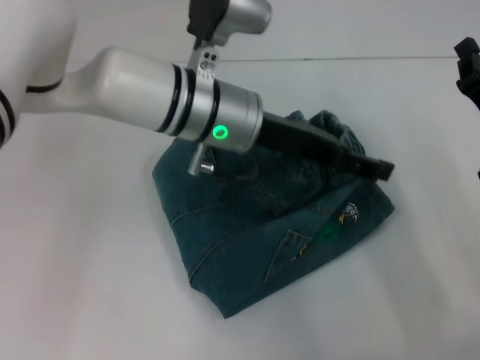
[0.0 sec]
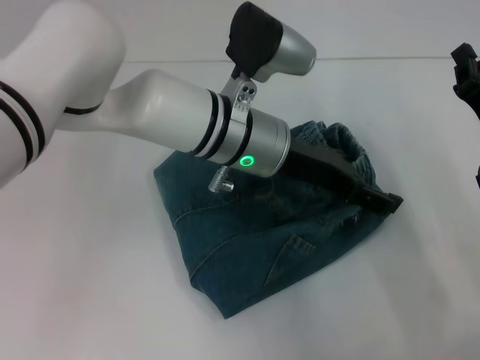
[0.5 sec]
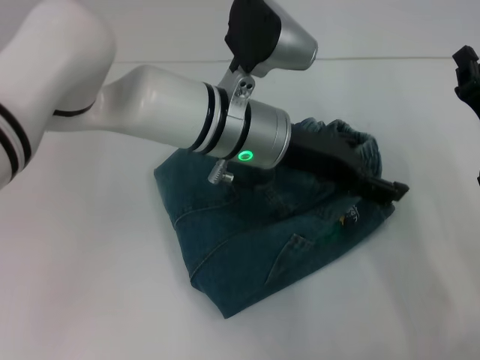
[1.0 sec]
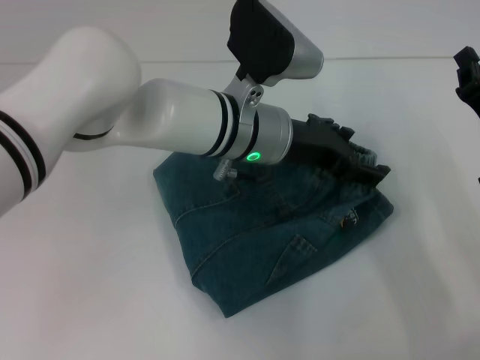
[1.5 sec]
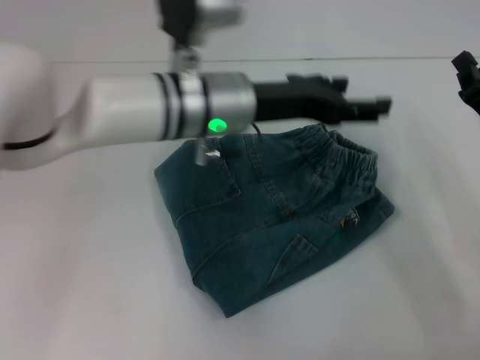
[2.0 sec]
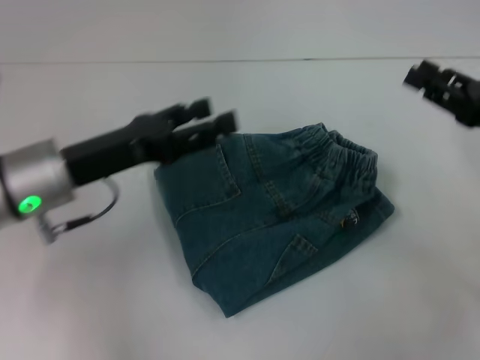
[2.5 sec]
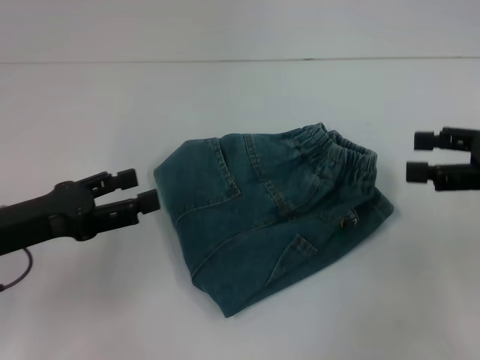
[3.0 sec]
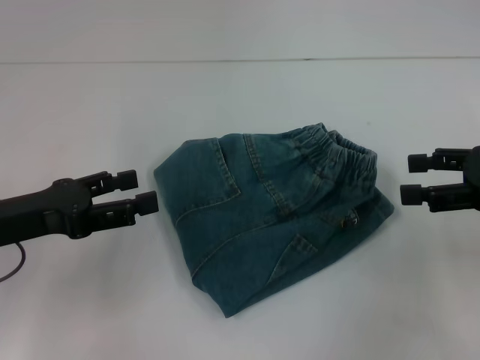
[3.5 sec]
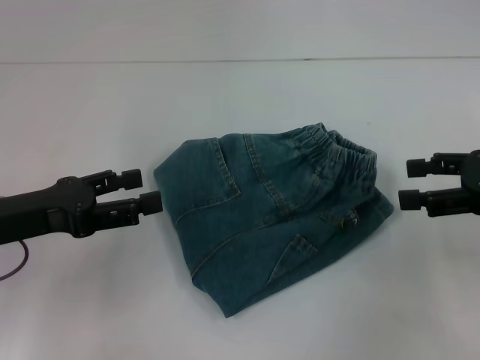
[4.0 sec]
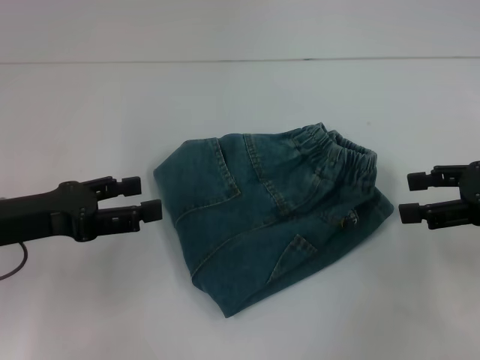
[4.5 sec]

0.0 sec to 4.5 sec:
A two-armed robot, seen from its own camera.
2.0 sec to 4.5 sec: The right gripper goes some 10 cm upward, and opens; the left gripper heads to the left and backward, covering some 25 cm.

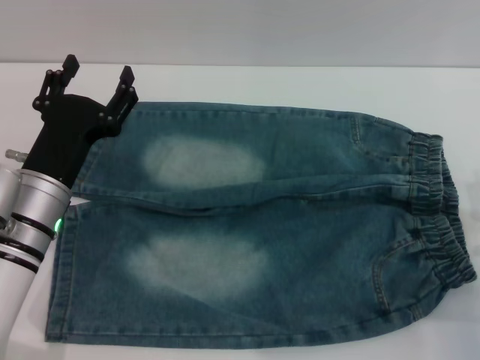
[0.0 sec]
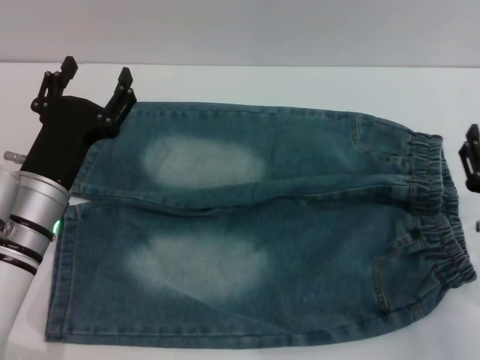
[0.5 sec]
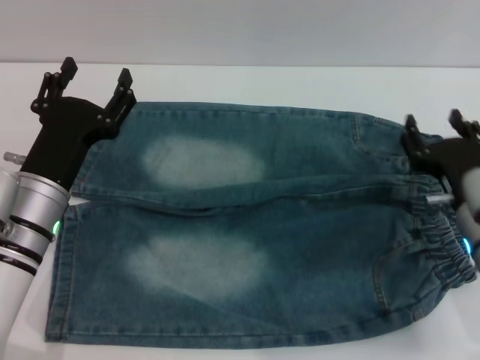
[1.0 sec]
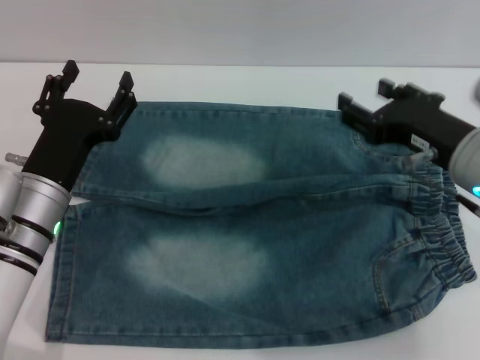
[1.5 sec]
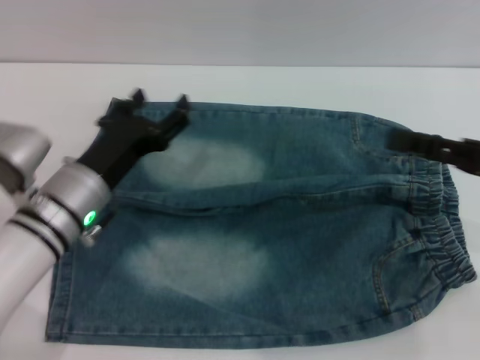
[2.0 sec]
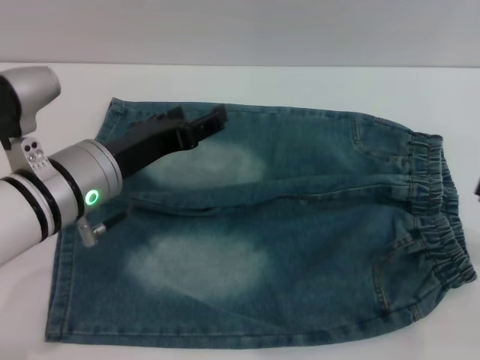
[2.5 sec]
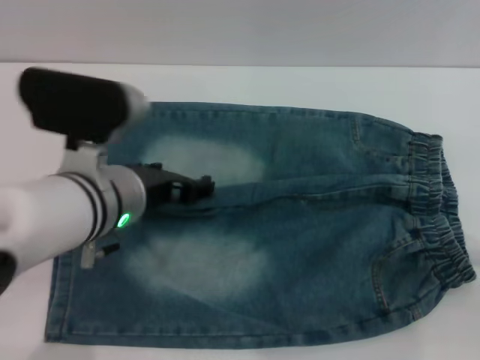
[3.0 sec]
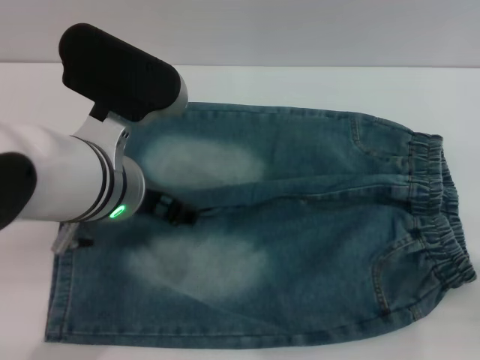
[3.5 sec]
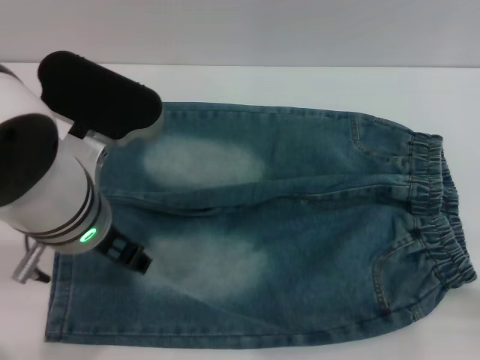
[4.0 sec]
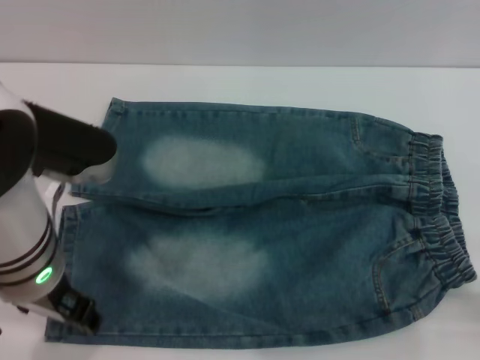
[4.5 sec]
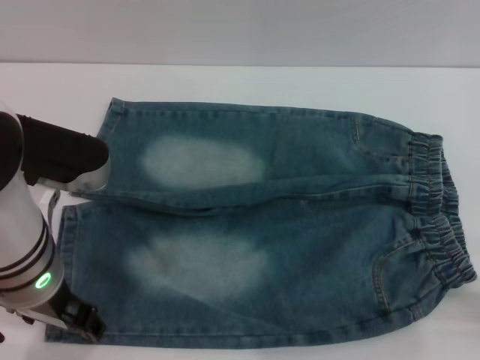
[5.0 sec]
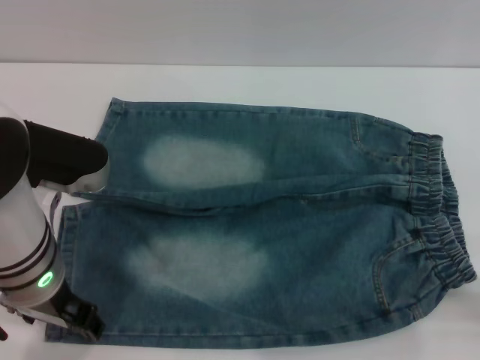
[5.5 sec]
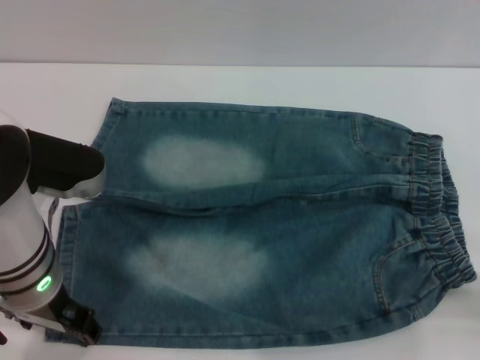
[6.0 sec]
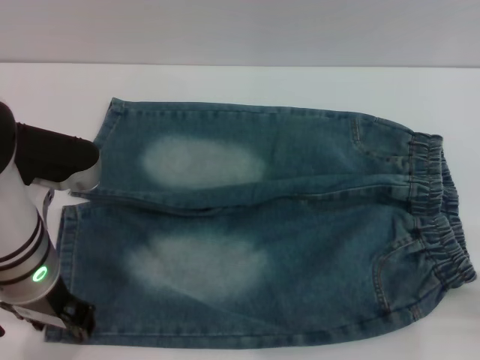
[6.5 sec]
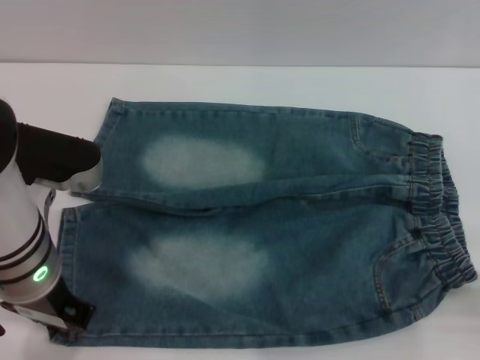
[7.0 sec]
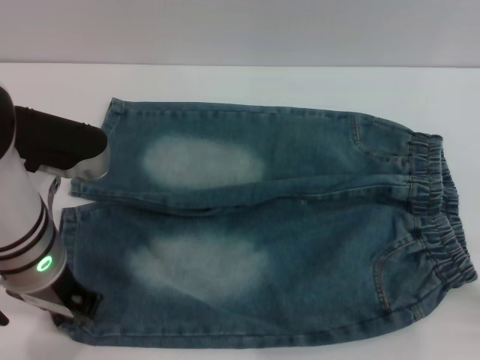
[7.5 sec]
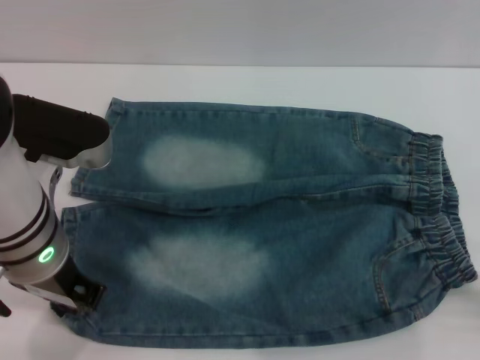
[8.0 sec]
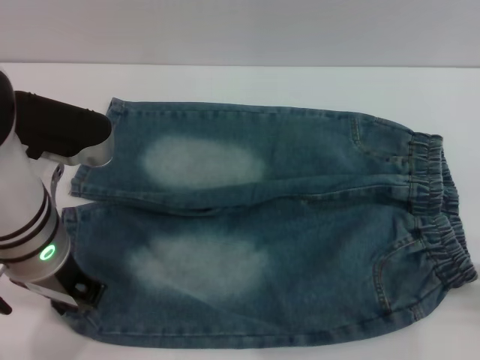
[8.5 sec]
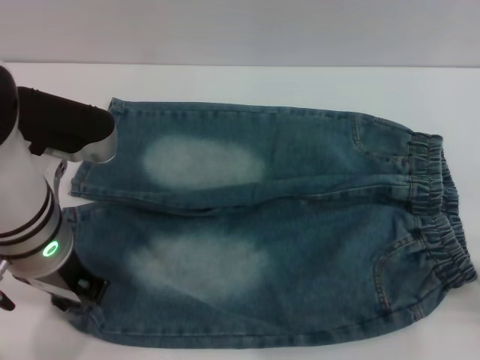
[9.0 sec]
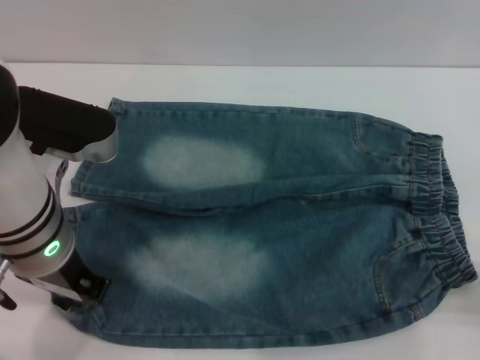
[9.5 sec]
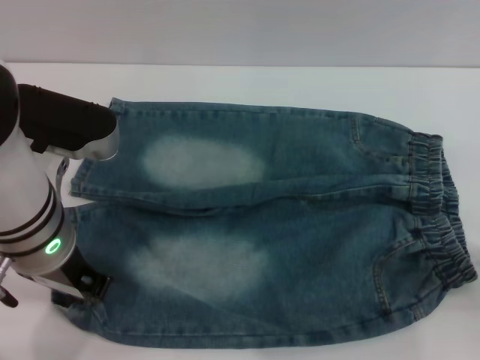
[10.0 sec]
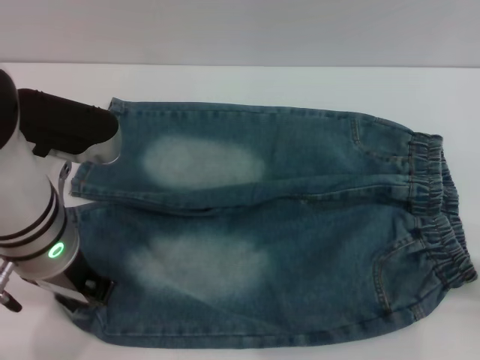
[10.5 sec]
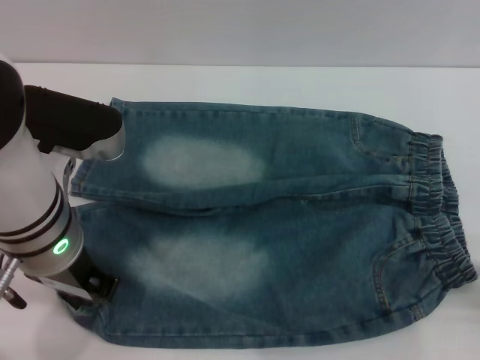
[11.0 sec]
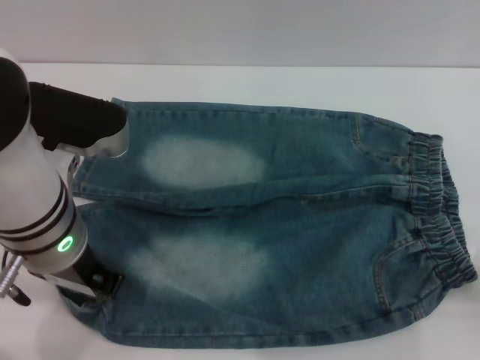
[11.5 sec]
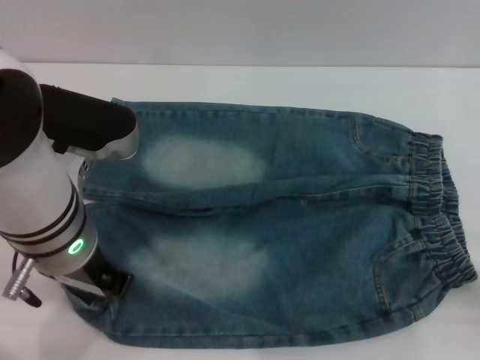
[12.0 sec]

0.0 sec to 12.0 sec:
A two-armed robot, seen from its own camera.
0.0 sec to 2.0 sec: The right gripper shifts some 15 cm upward.
2.0 sec to 4.0 sec: The left gripper is displaced upward and to the right by some 15 cm. The right gripper shifts about 15 cm to the right, backward and downward.
4.0 sec to 6.0 sec: The left gripper ends up about 5 cm from where it was.
6.0 sec to 8.0 sec: The left gripper closes.

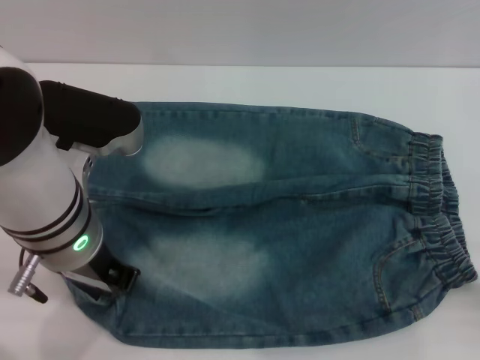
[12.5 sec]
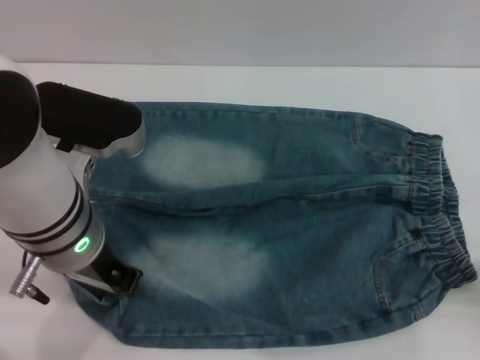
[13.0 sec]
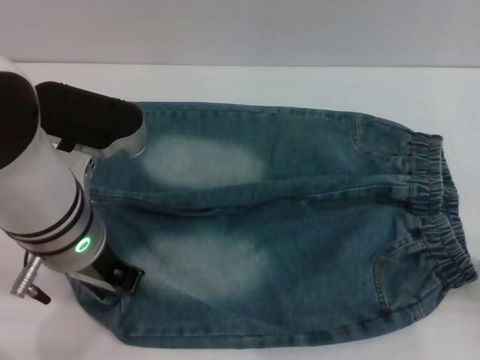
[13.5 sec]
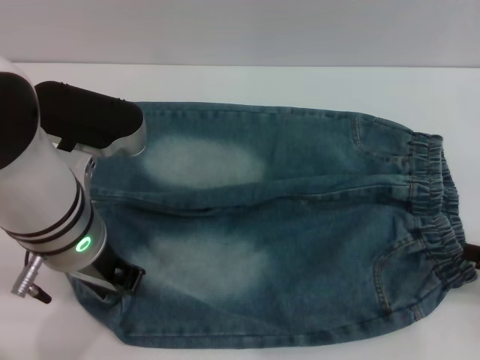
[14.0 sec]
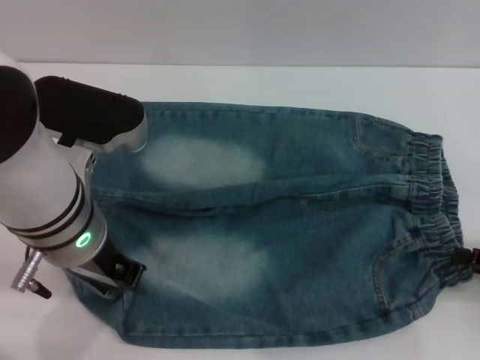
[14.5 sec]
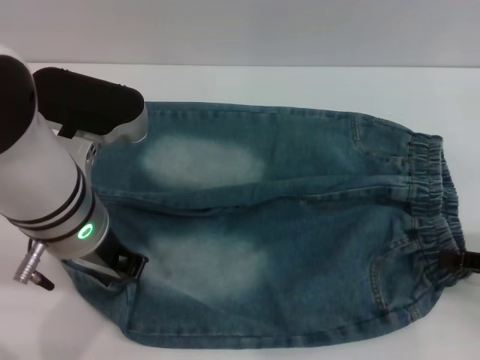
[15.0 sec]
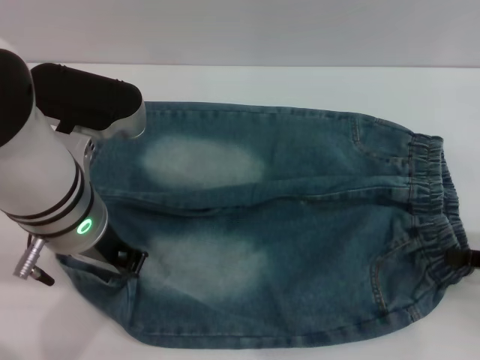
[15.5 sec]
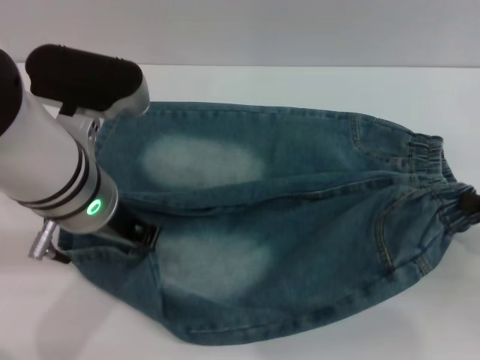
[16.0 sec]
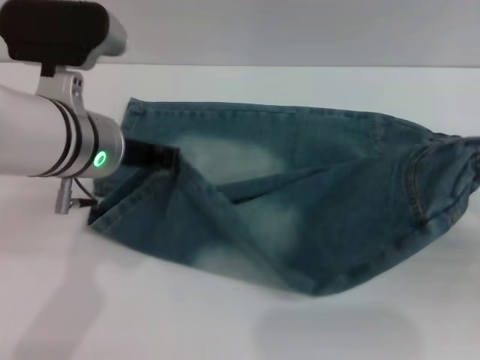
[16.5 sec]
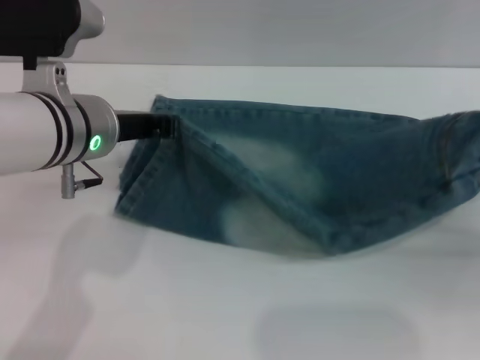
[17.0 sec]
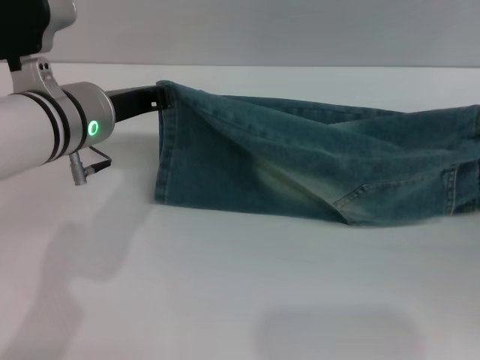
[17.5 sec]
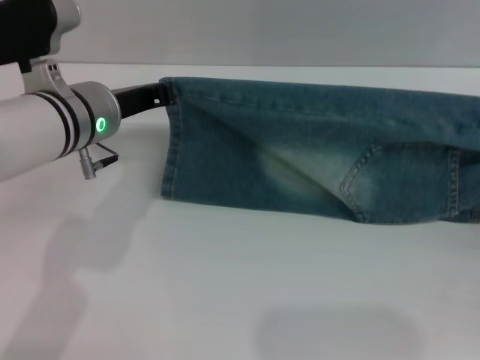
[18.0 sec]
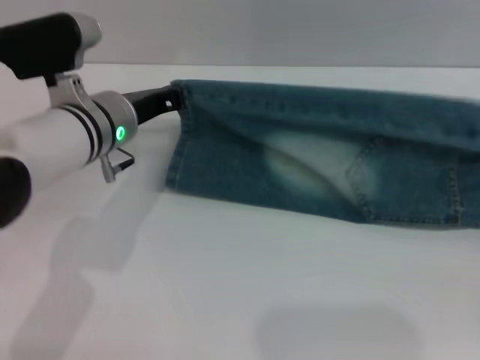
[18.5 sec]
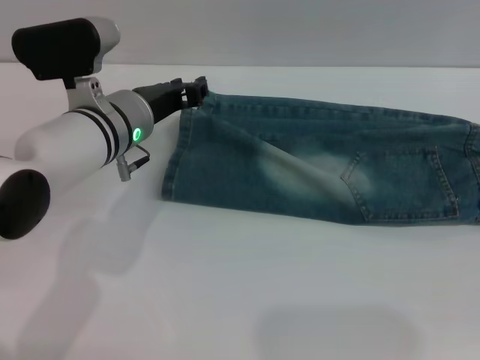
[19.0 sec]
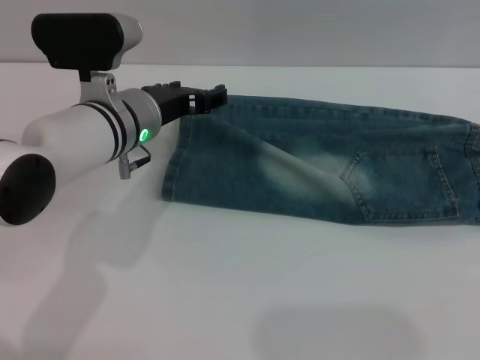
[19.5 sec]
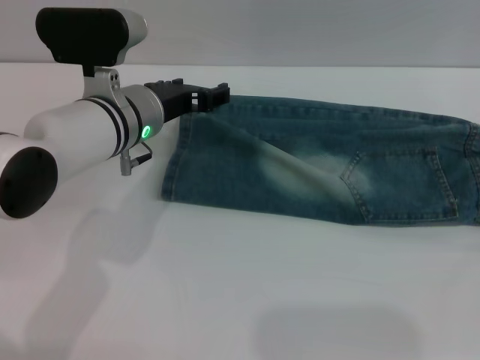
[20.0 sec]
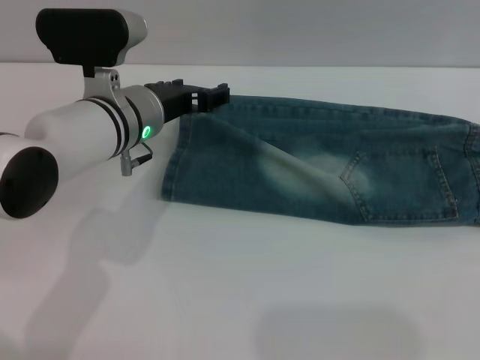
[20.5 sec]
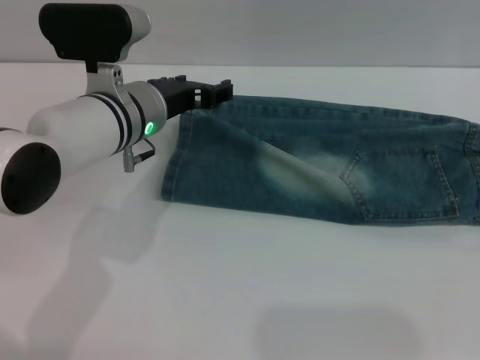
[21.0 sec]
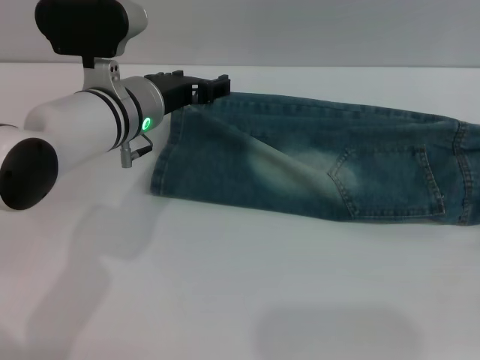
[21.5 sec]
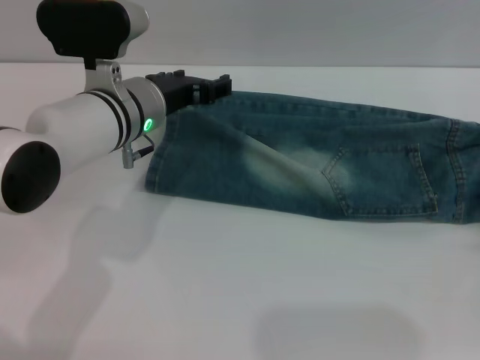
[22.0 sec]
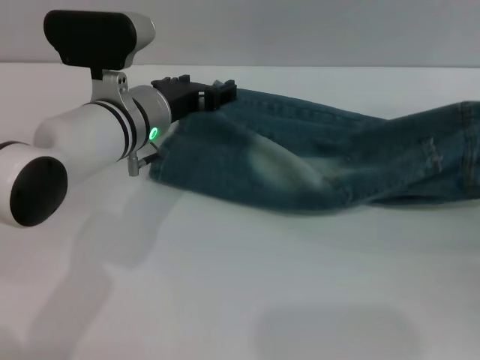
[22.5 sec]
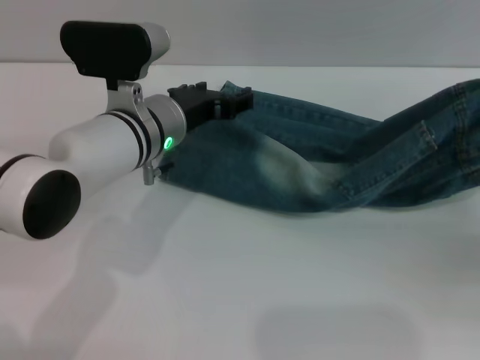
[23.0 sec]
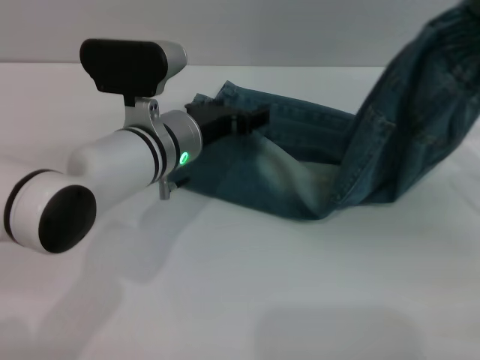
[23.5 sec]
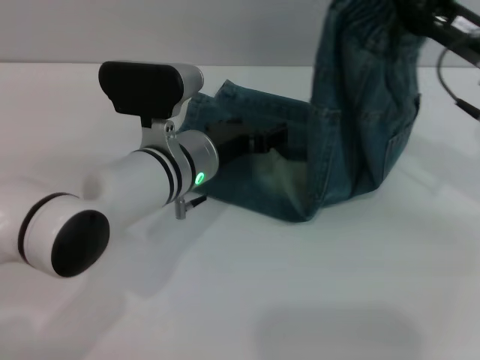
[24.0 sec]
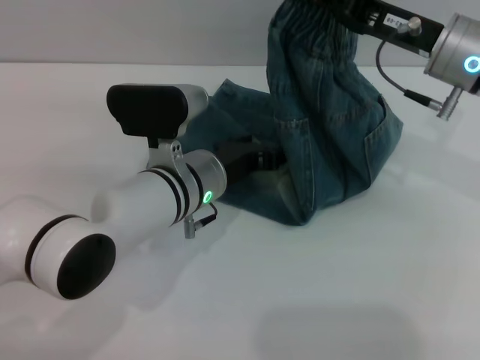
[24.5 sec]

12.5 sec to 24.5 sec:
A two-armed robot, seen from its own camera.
Step, 12.5 sec to 19.0 sec: Fold the bottom of the pants upward with both grippers.
12.5 sec to 14.5 sec: The right gripper changes place by about 5 cm.
14.5 sec to 16.5 sec: The right gripper closes its fingers.
16.5 sec to 18.5 sec: The right gripper travels downward by some 5 cm, while the left gripper travels downward and forward by some 10 cm.
18.5 sec to 20.5 sec: The right gripper opens. The left gripper opens up.
20.5 sec to 22.5 sec: The right gripper shifts some 5 cm upward, and closes its fingers.
22.5 sec to 24.5 sec: The left gripper changes place by approximately 10 cm. The right gripper goes some 25 cm forward, to the left and upward.
